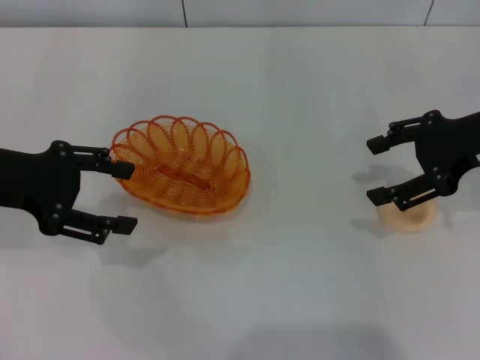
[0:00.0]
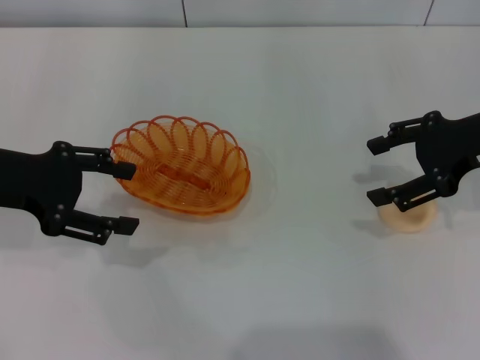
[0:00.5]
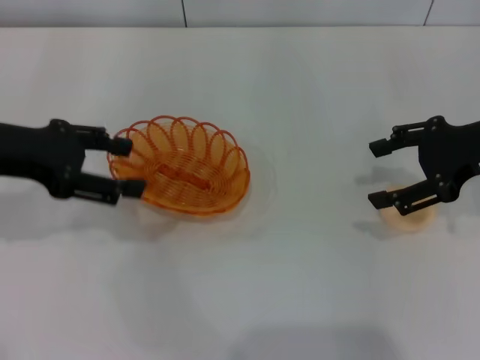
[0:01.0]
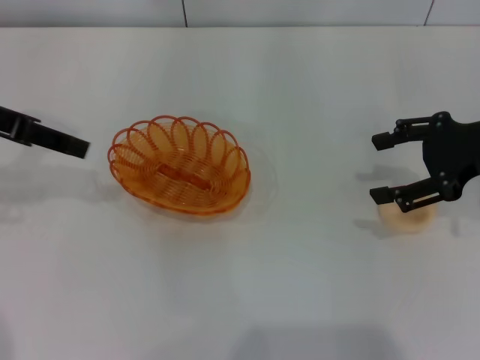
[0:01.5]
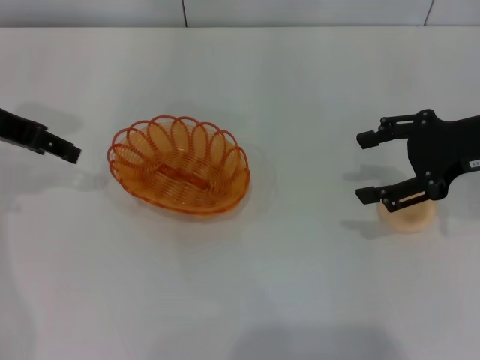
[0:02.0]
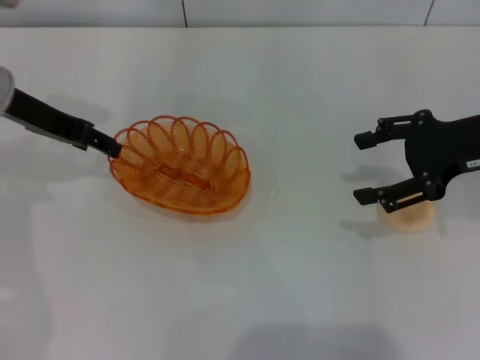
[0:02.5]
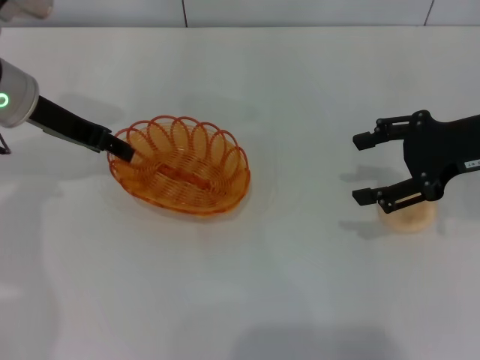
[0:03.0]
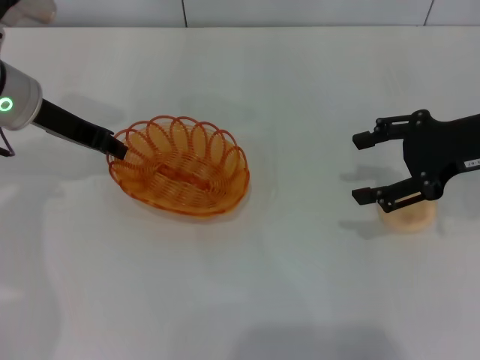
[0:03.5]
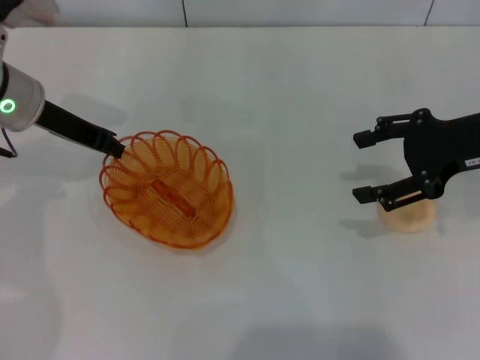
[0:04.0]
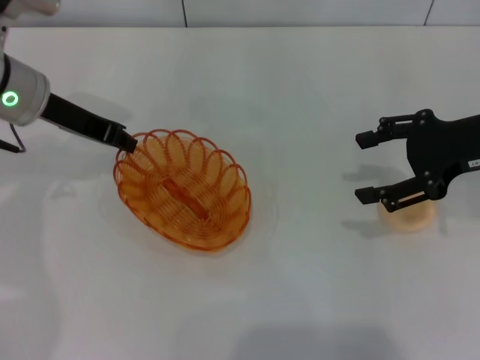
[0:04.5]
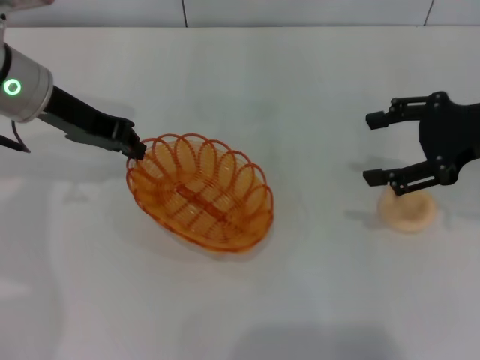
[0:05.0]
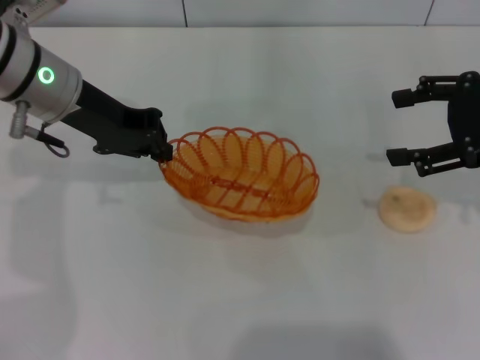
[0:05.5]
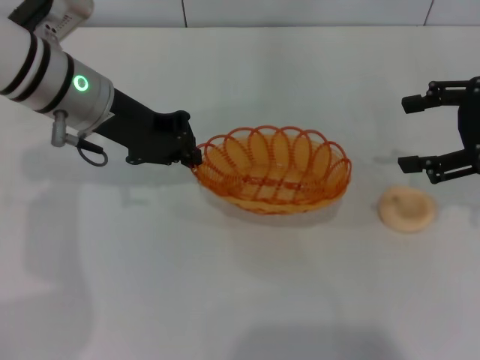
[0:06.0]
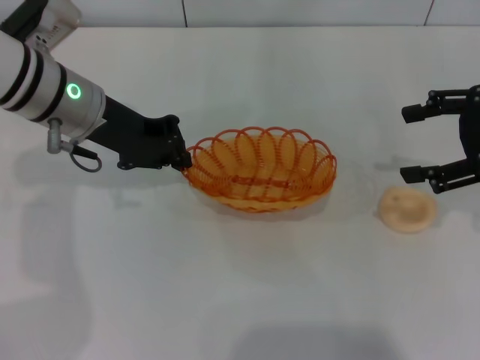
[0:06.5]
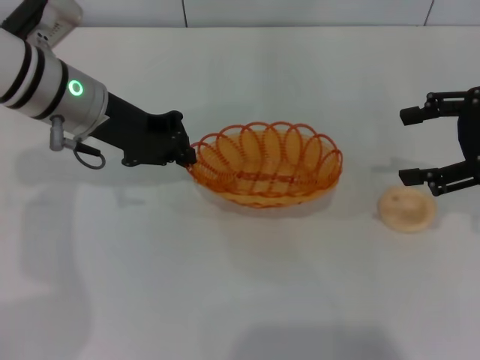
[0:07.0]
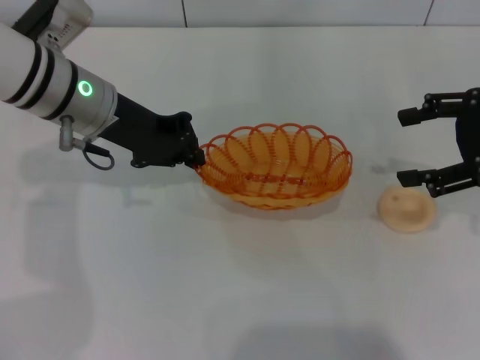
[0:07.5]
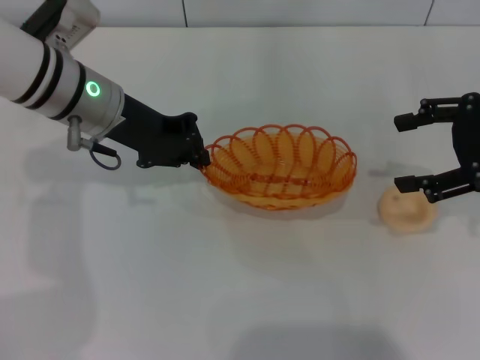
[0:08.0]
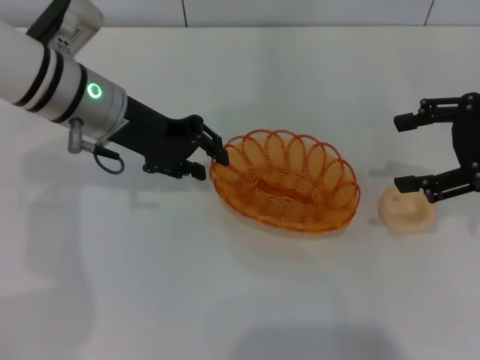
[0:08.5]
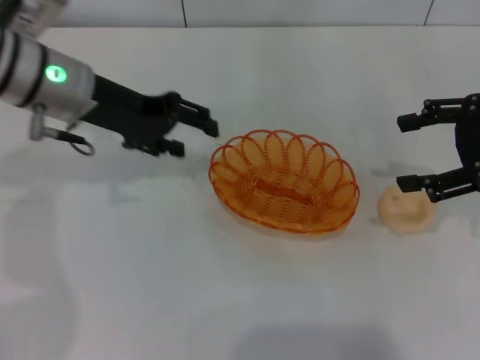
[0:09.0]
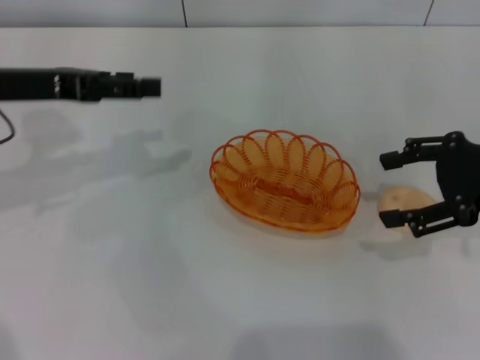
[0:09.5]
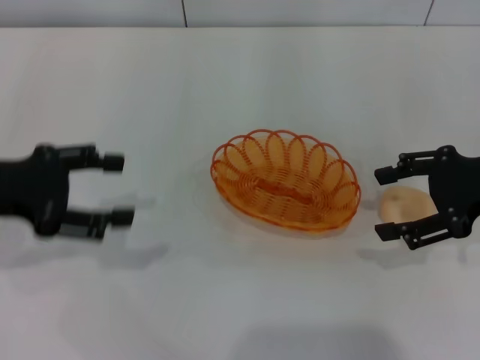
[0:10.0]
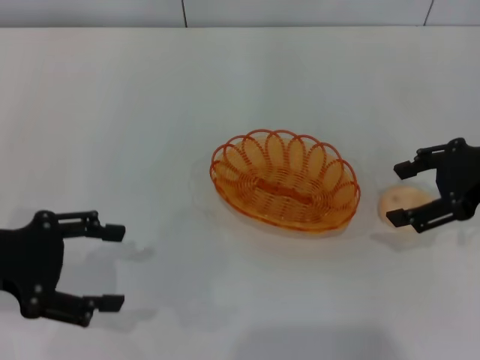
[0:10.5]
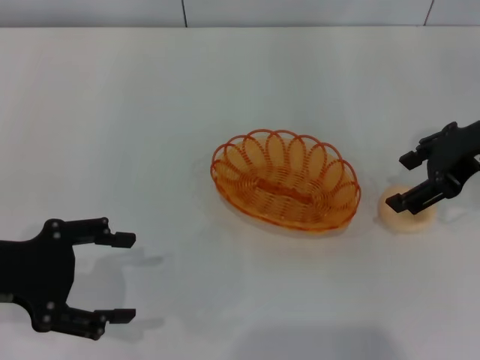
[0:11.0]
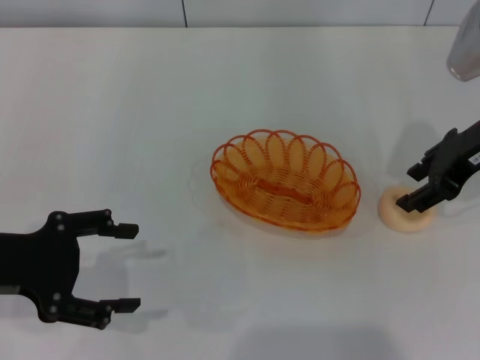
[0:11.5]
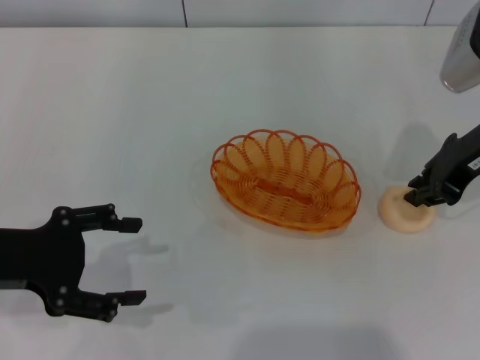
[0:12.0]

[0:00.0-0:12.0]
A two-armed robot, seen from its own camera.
Step, 0:00.0 to 0:05.5: Pick up the basket with the left gripper.
Step, 0:06.0 to 0:09.0: Place the basket in the center of view with the left gripper.
0:00.0 to 0:02.0: The left gripper travels forward by roughly 5 cm.
0:02.0 to 0:04.0: The left gripper heads downward, covering some 5 cm, and closes.
0:04.0 to 0:06.0: The left gripper heads to the right, covering some 5 cm.
0:06.0 to 0:08.0: The grippers make only small movements.
0:08.0 to 0:10.0: The left gripper travels to the left and backward by some 15 cm, and opens up.
0:10.0 to 0:12.0: The right gripper shifts approximately 5 cm forward, and closes up. The left gripper shifts by about 5 cm.

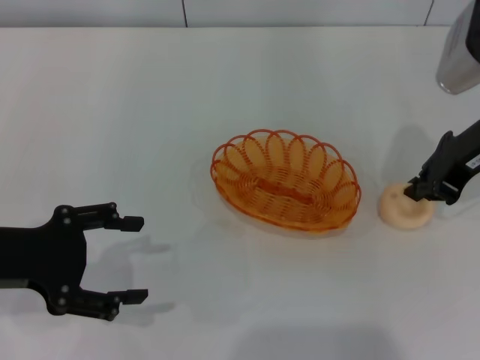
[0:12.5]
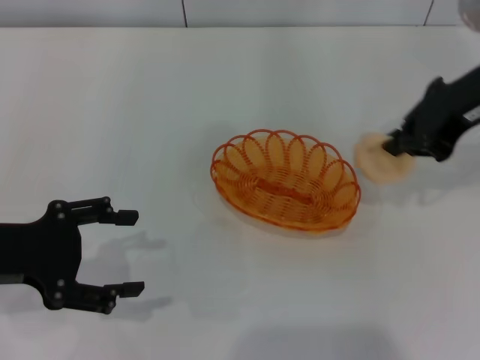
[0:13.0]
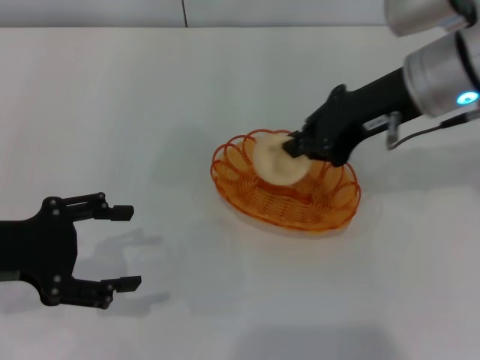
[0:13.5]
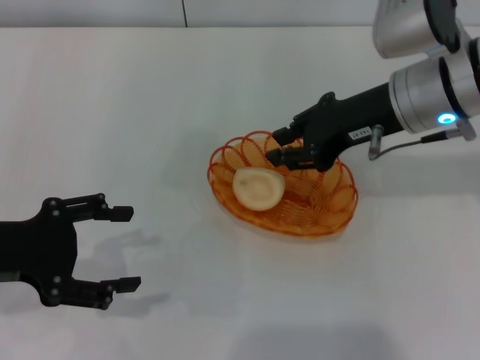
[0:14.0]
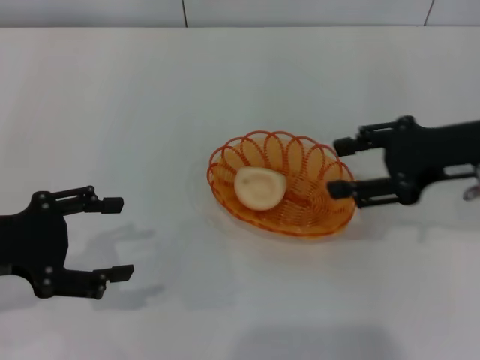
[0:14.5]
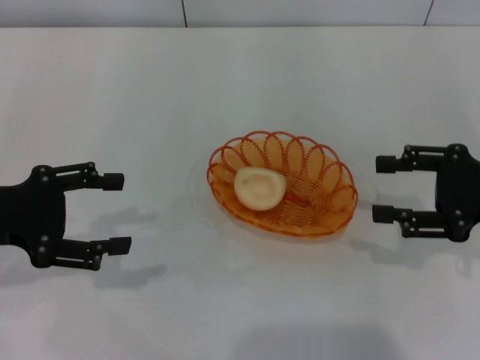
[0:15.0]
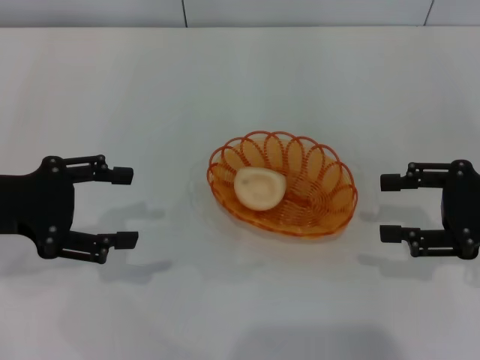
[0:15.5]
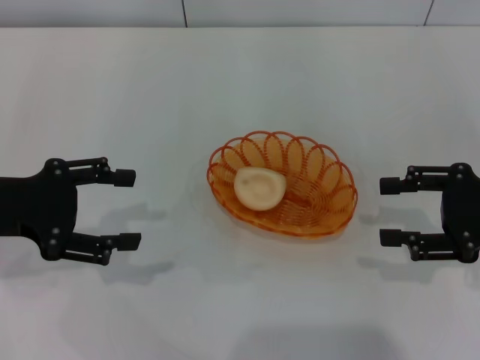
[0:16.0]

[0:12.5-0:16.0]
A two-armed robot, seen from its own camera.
Step, 0:13.5 to 0:14.5: Place the egg yolk pastry into the basket with the right gripper.
0:12.5 to 0:14.5: The right gripper travels to the left and back again, about 10 cm each way, and opens.
0:14.5 to 0:16.0: The right gripper goes some 5 cm to the right.
